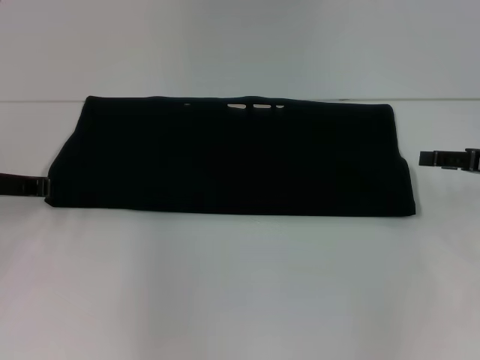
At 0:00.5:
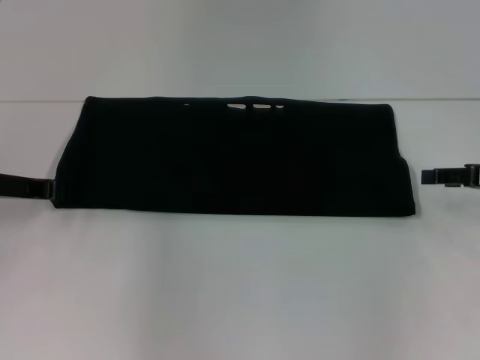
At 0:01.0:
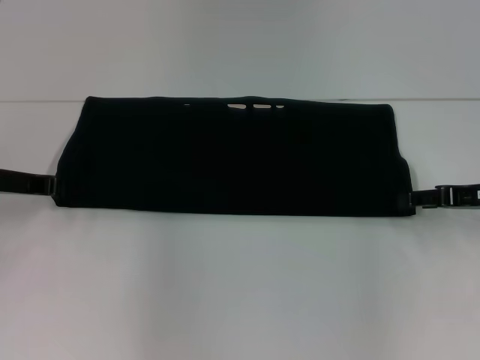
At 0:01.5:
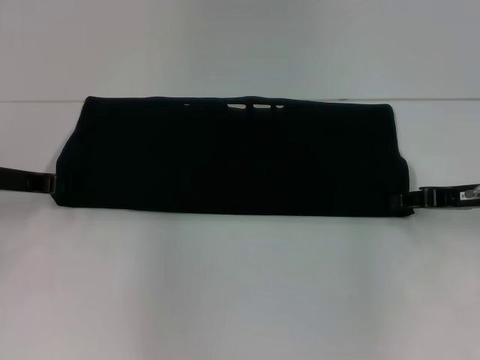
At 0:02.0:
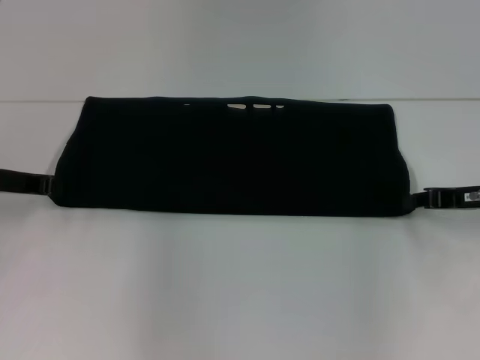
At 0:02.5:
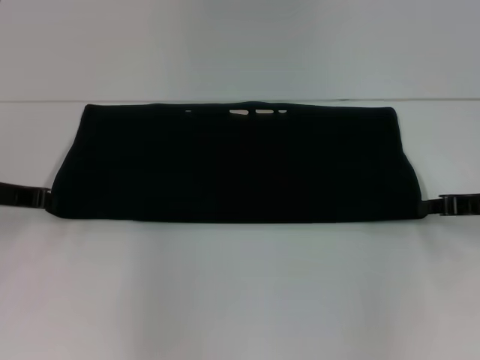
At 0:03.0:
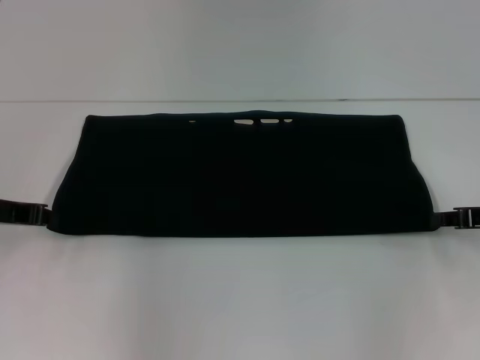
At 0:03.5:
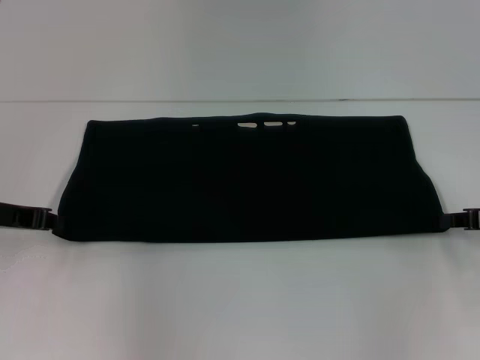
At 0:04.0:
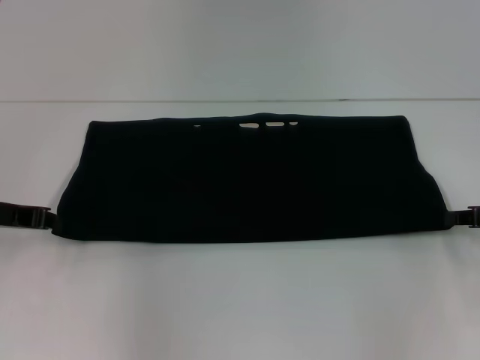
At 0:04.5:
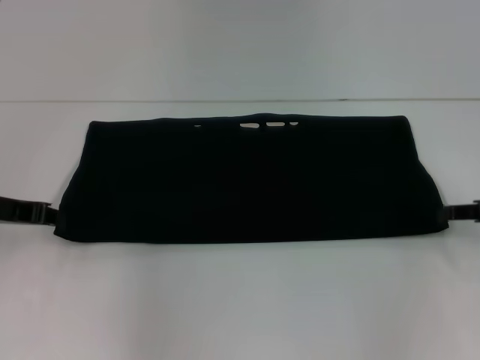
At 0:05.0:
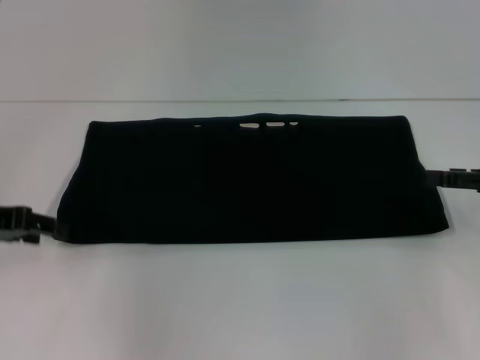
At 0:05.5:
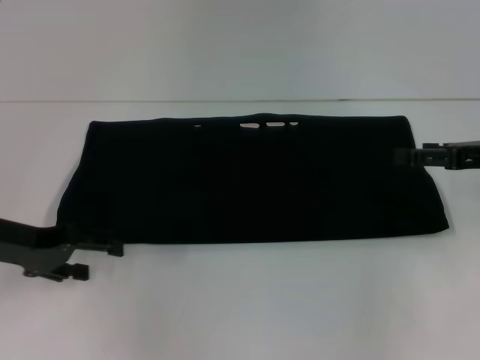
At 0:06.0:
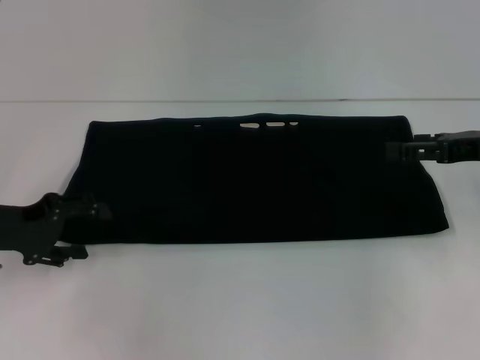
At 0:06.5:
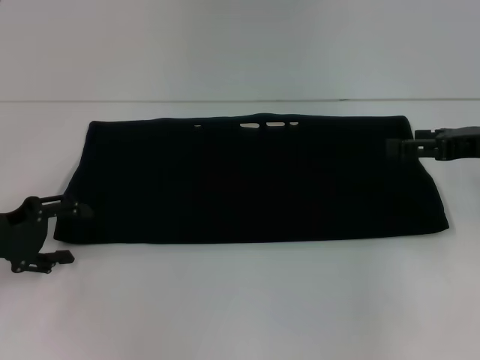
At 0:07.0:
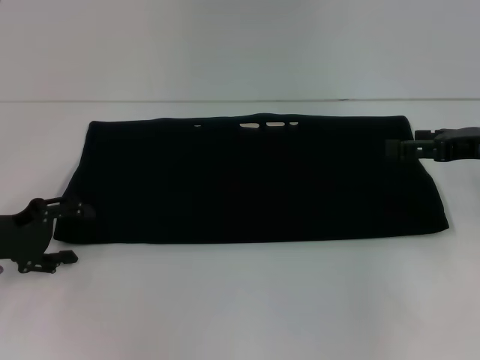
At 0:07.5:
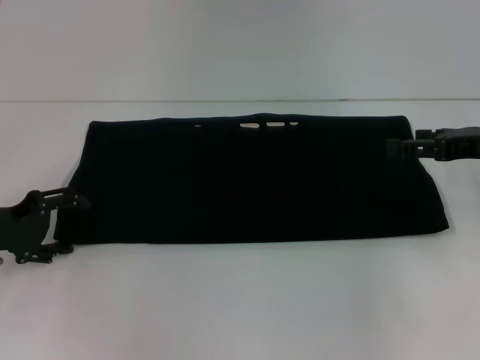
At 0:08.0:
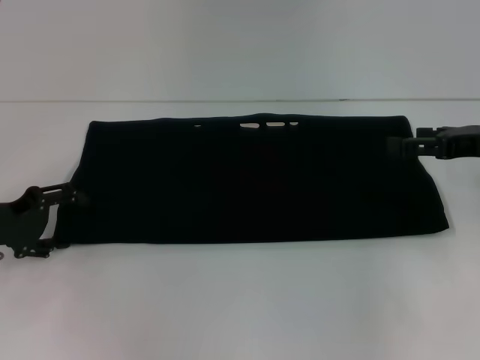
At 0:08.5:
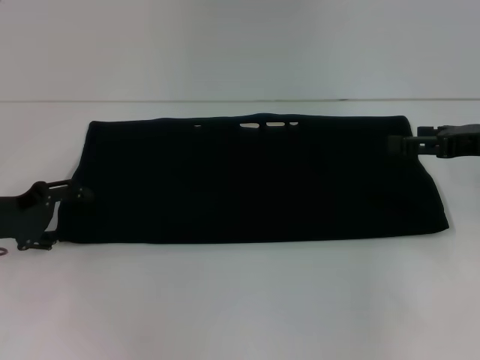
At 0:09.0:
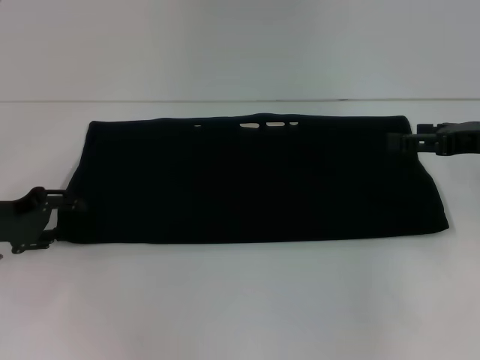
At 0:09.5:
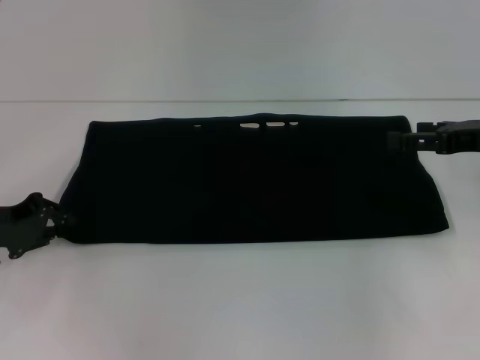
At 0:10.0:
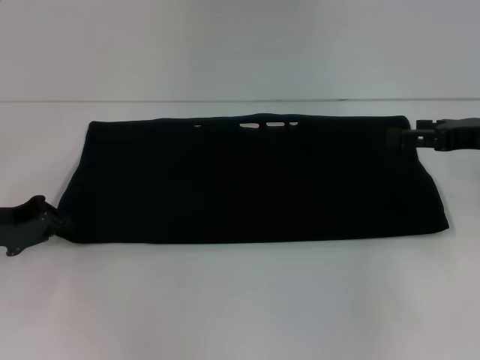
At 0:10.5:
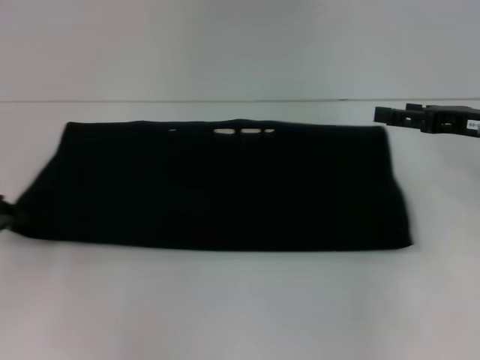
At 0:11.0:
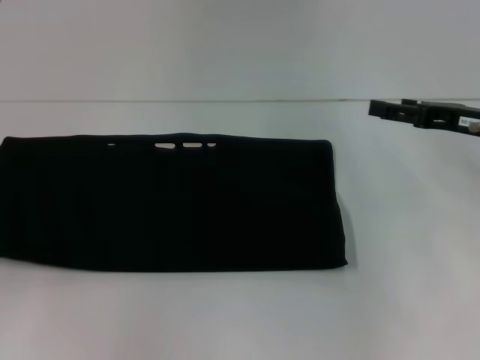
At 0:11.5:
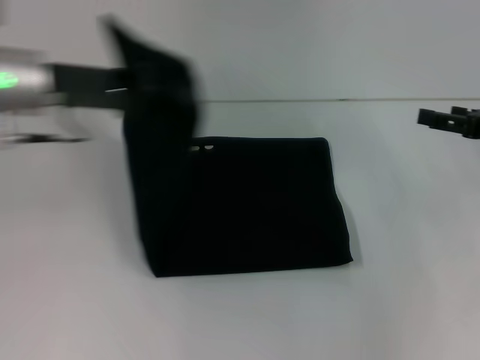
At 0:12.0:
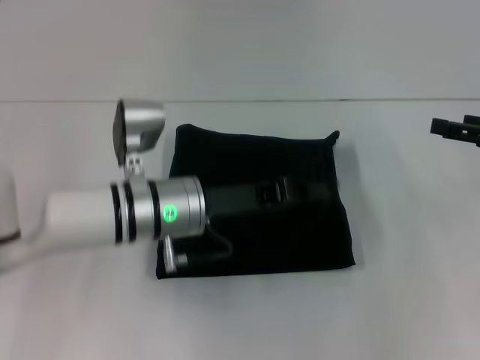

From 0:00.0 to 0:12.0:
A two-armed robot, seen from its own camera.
From 0:00.0 to 0:02.0: The right gripper shifts by roughly 5 cm, and closes up.
From 0:02.0 to 0:04.0: The right gripper moves roughly 5 cm.
From 0:04.0 to 0:06.0: The right gripper travels upward by some 5 cm, and opens its fingers; the left gripper opens its fingers.
From 0:06.0 to 0:08.0: The grippers make only small movements.
From 0:08.0 to 0:10.0: The left gripper closes up.
From 0:10.0 to 0:12.0: The left gripper travels to the right by approximately 25 cm.

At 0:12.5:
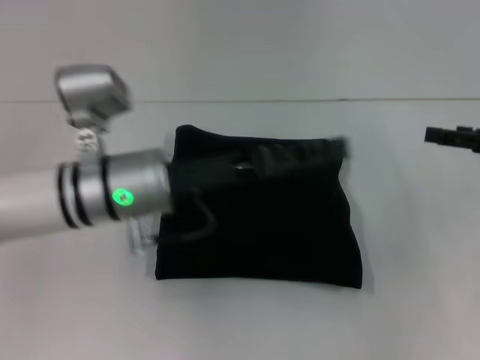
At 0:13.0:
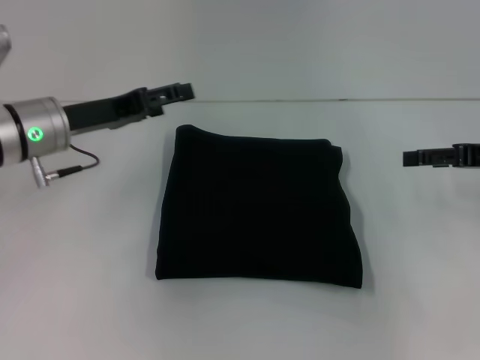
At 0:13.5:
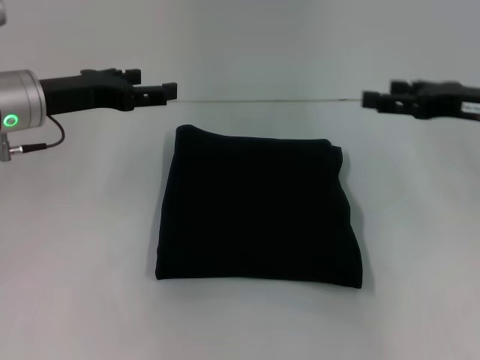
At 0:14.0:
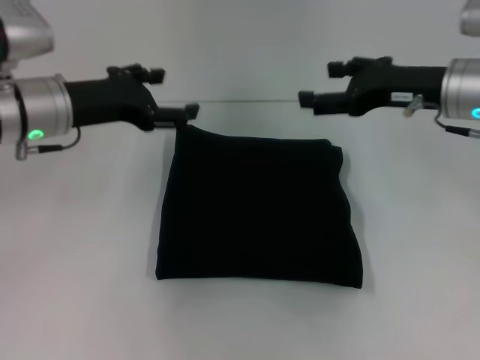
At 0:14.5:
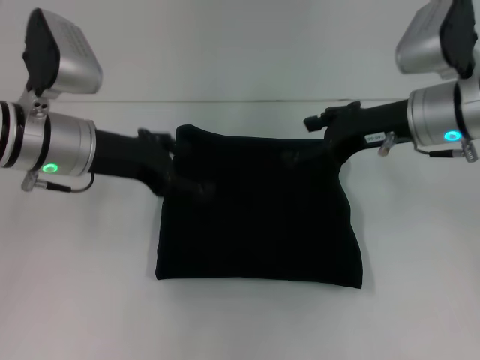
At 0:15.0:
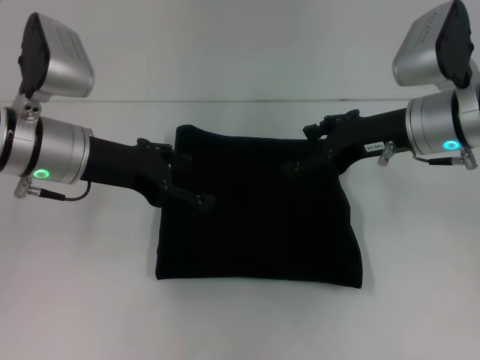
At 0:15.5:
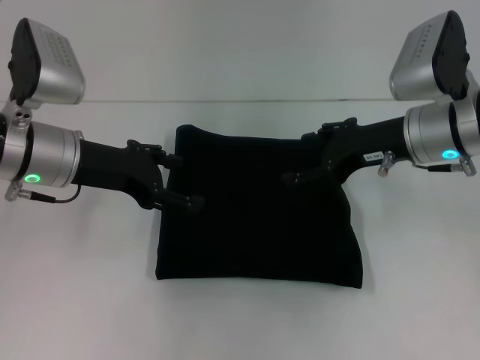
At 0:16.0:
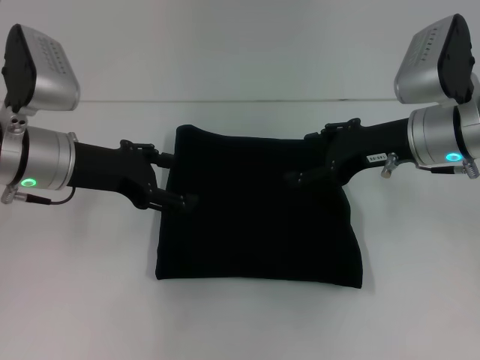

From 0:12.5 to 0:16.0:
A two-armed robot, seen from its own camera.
From 0:12.5 to 0:14.5: The right gripper goes some 15 cm to the left. Meanwhile the left gripper heads to the left, covering approximately 5 cm, and opens.
From 0:14.5 to 0:16.0: The grippers stay close to where they were, moving slightly.
